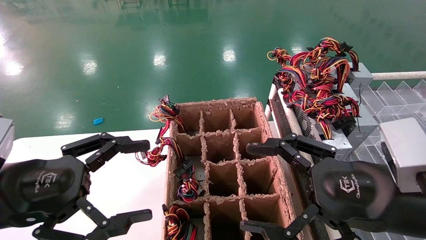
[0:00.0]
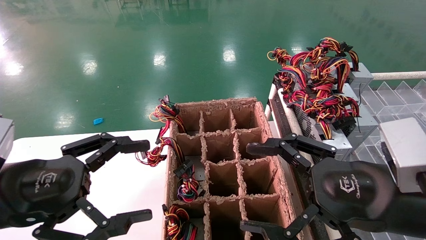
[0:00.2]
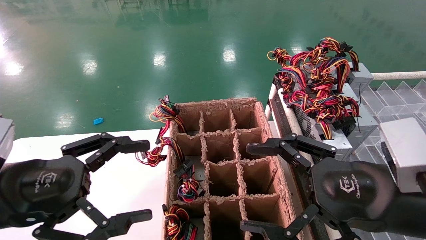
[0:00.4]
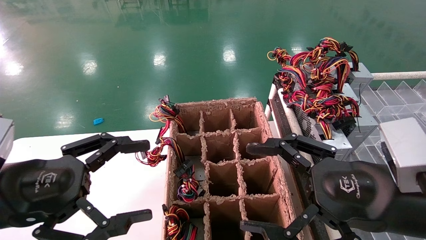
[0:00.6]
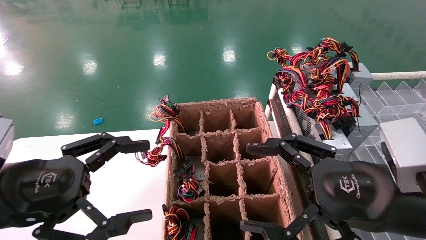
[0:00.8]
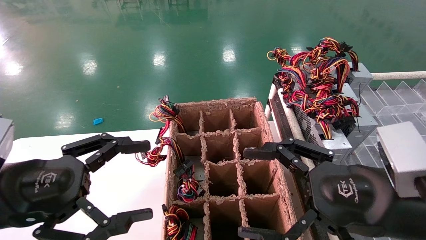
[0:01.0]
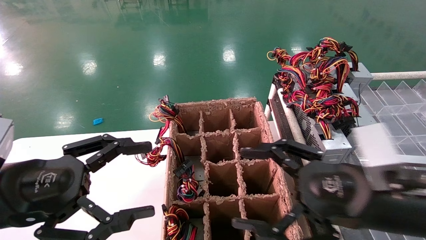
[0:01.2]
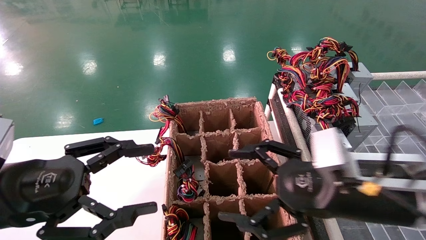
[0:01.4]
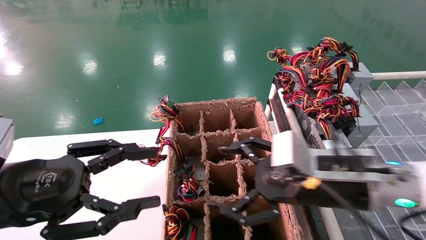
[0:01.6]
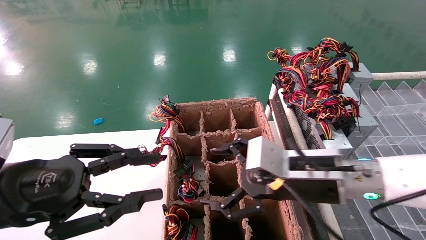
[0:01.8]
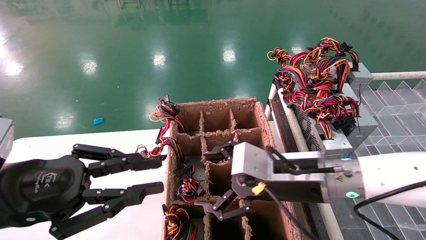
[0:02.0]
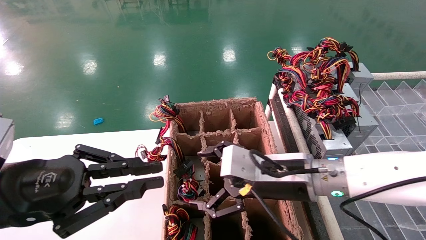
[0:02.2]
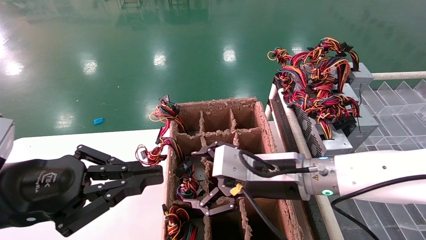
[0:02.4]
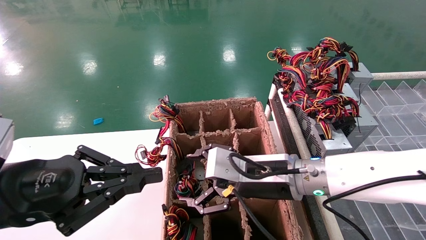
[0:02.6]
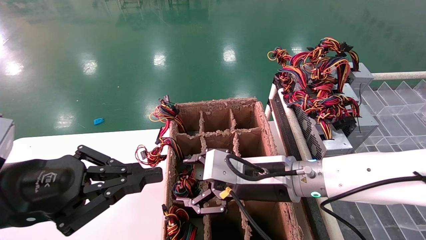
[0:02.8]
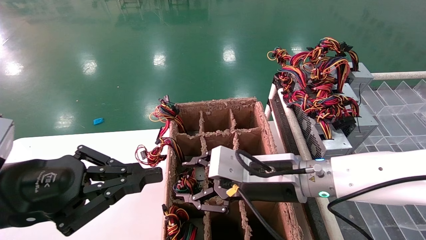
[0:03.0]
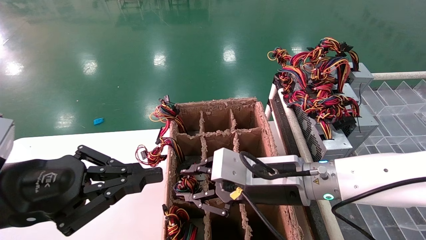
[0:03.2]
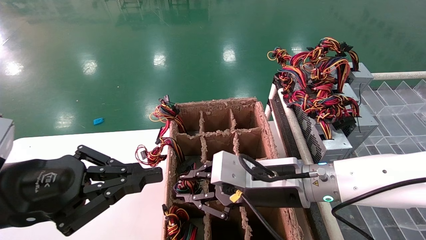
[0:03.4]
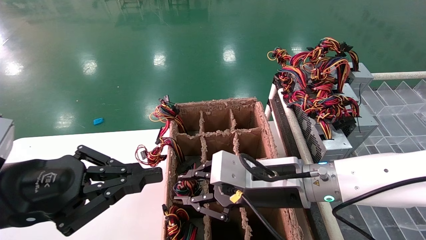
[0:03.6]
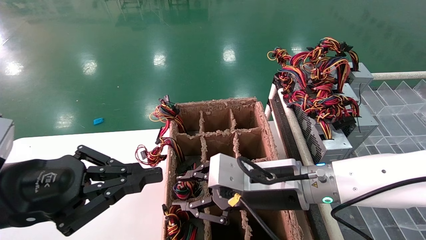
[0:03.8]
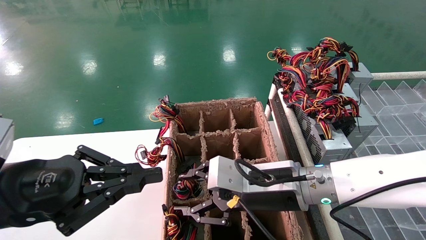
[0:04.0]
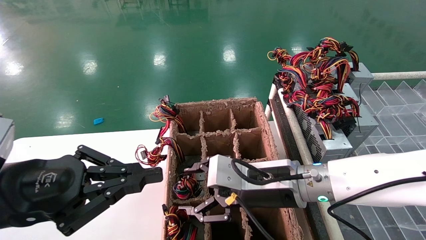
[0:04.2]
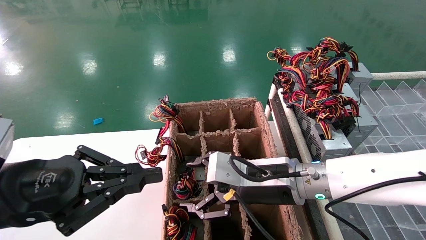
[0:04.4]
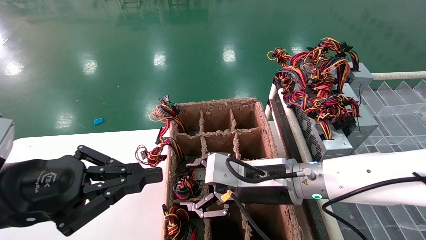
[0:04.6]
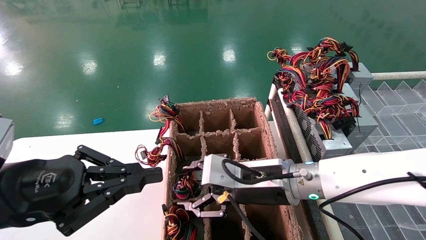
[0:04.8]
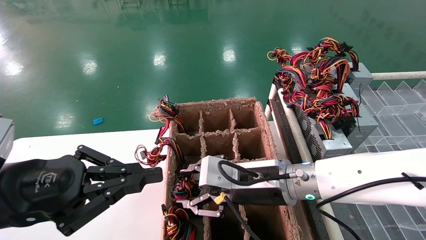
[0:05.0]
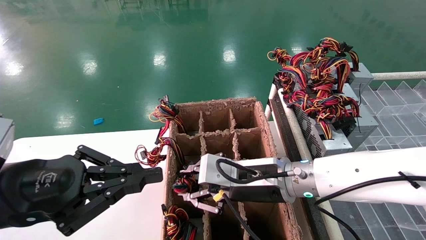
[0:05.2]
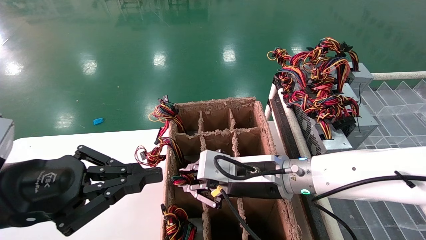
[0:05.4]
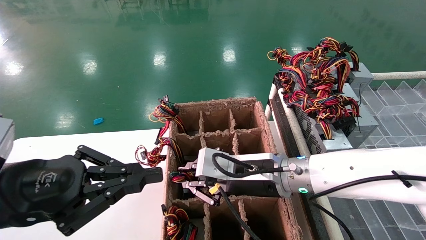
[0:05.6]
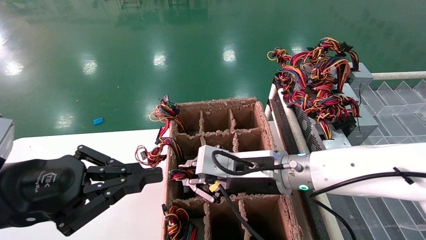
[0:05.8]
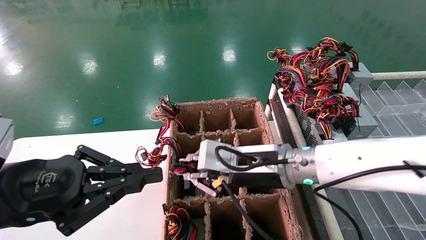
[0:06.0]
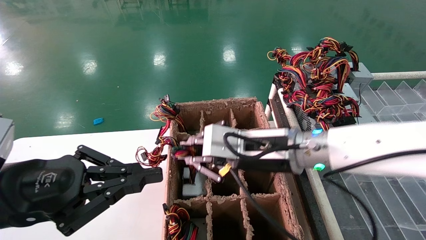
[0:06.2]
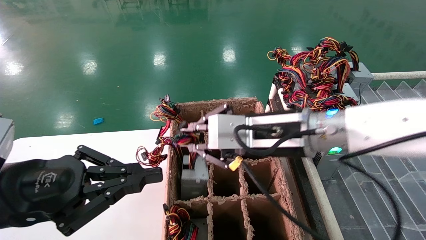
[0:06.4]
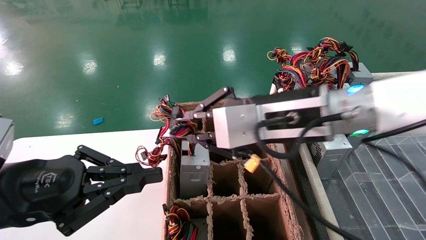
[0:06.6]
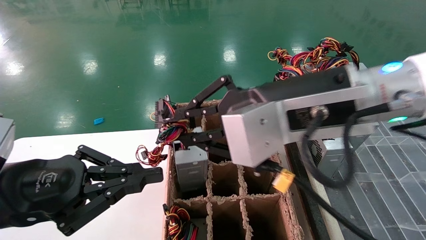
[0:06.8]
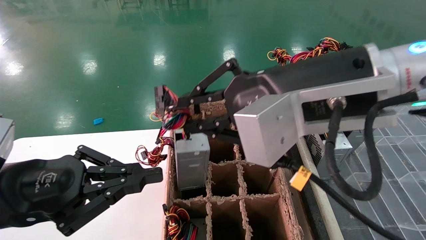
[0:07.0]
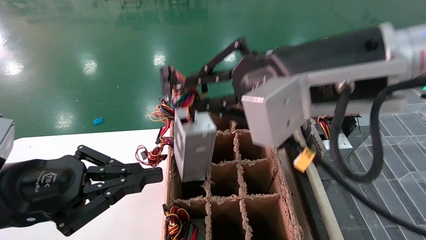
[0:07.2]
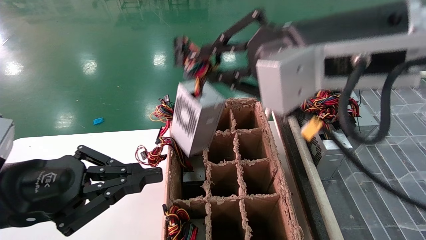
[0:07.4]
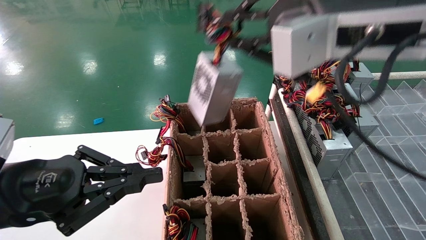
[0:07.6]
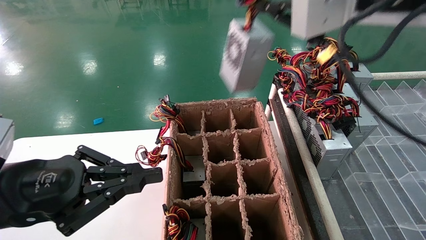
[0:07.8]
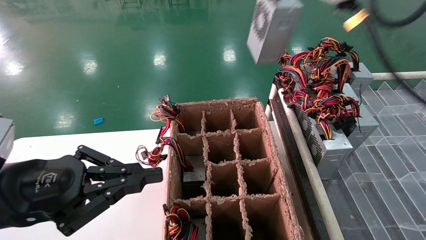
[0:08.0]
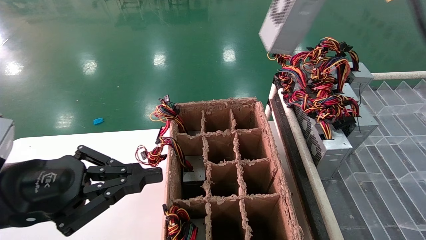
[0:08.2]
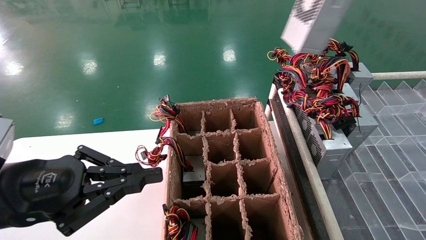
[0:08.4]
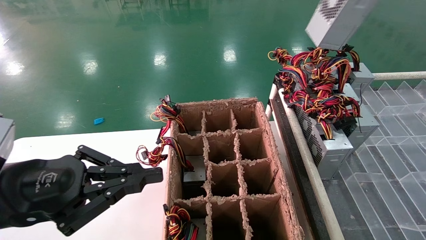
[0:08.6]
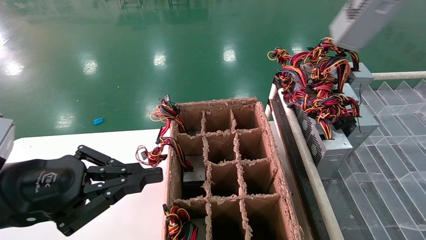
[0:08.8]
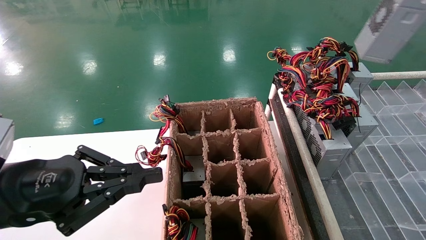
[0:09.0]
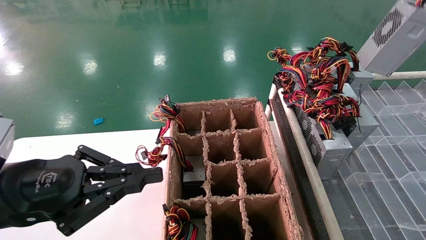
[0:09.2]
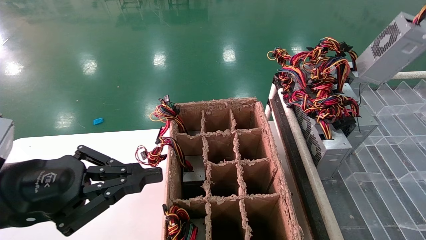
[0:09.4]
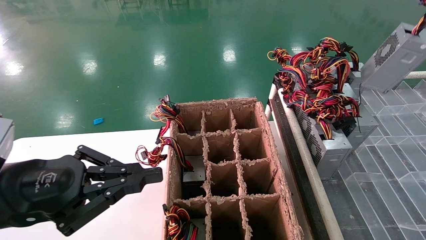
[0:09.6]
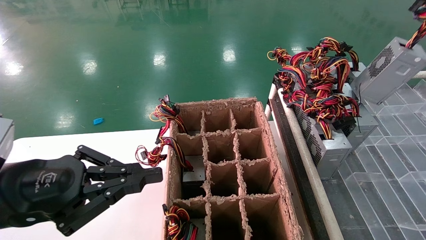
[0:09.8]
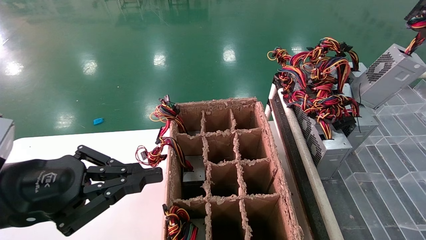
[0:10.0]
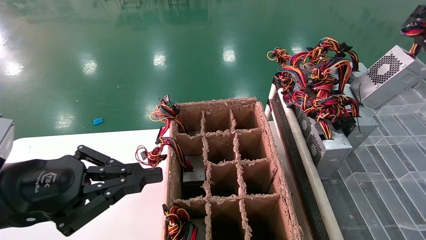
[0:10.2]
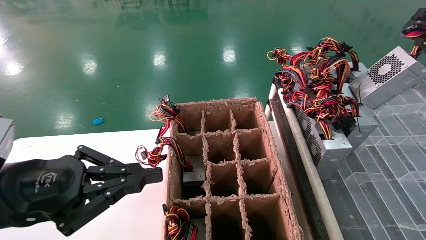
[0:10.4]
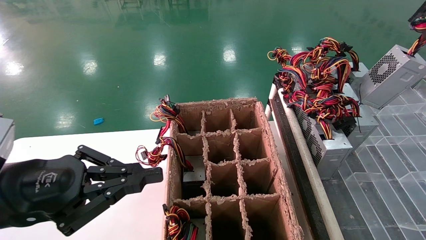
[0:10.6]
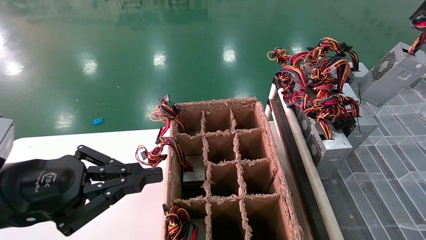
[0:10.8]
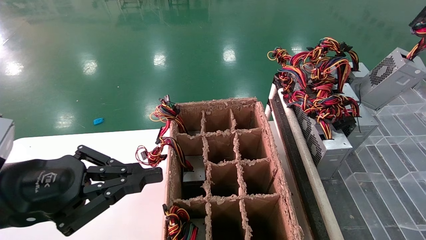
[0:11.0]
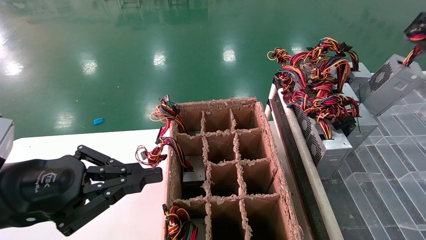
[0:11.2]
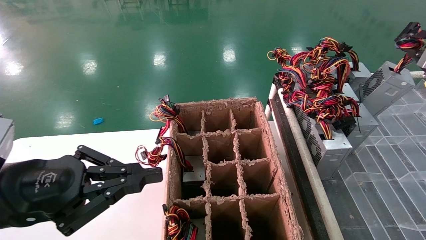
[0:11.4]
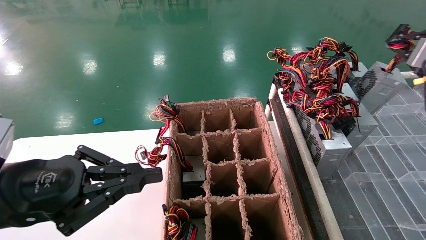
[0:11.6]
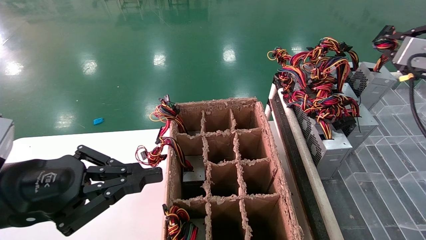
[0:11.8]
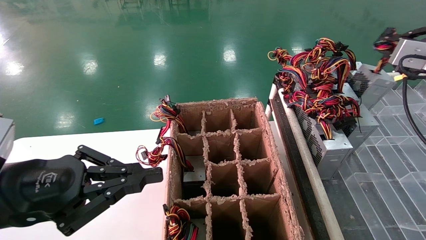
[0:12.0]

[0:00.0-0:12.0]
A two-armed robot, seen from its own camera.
Step, 0:01.6 to 0:05.6: Grab the main unit power supply from the containment box.
0:00.0 to 0:01.6: The right gripper is displaced forward and to the left by approximately 10 cm.
0:01.6 to 0:03.0: The right gripper shifts about 5 cm to the left, and closes up. The left gripper closes.
0:03.0 to 0:04.4: The right gripper closes, then reopens.
0:04.4 to 0:06.0: The right gripper closes its fingers.
0:06.0 to 0:07.6: The right gripper shifts roughly 20 cm upward.
0:07.6 to 0:09.0: The right gripper goes about 20 cm to the right.
0:09.0 to 0:10.4: The right gripper shifts some 10 cm downward.
0:10.4 to 0:12.0: The right gripper shifts approximately 10 cm forward.

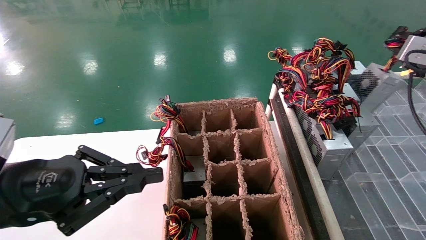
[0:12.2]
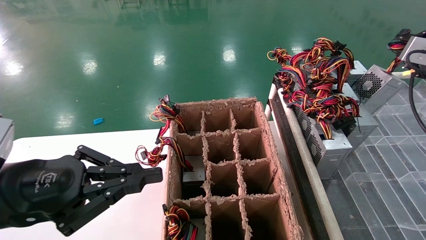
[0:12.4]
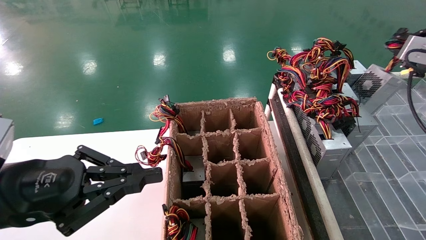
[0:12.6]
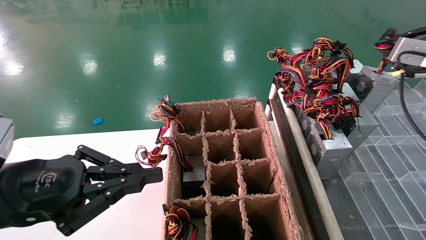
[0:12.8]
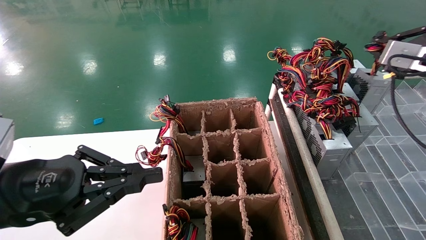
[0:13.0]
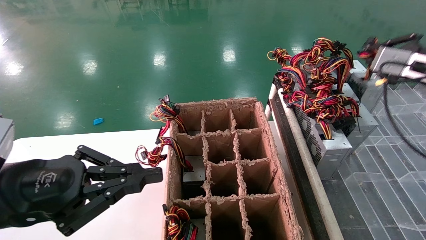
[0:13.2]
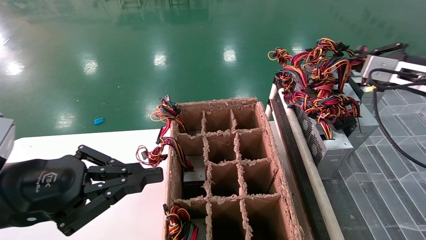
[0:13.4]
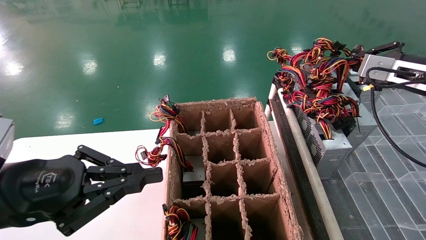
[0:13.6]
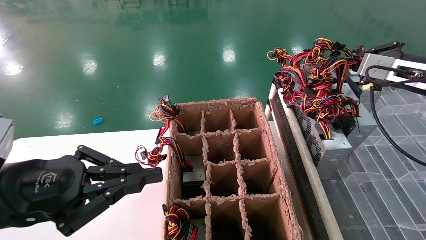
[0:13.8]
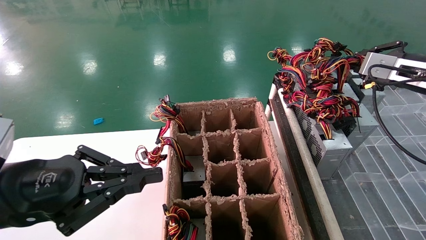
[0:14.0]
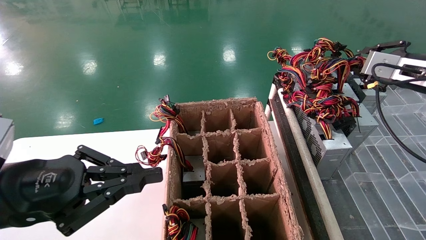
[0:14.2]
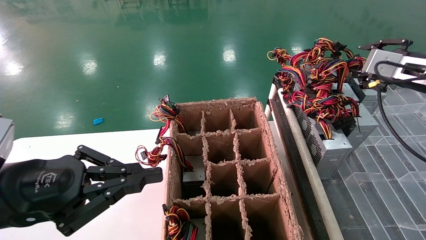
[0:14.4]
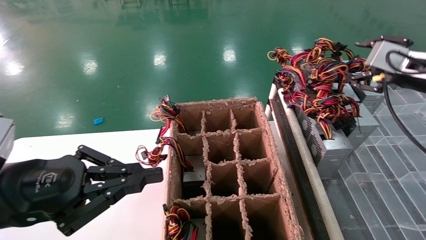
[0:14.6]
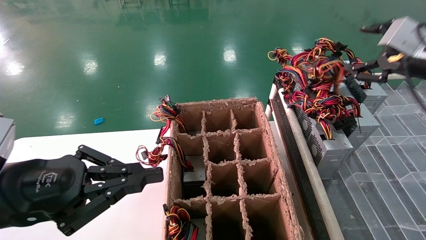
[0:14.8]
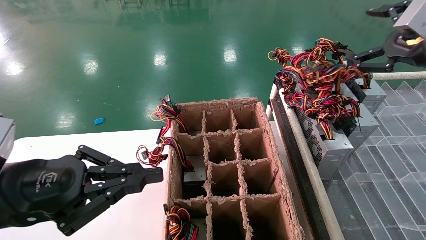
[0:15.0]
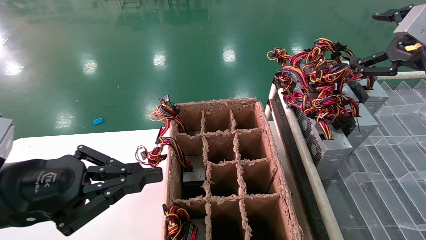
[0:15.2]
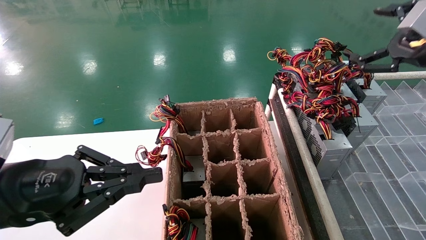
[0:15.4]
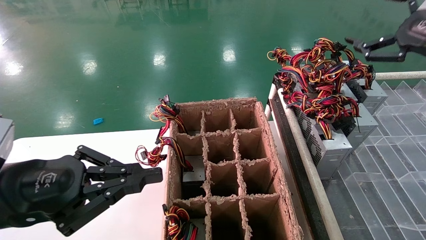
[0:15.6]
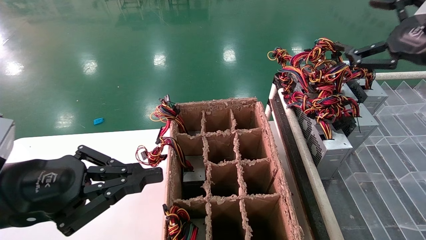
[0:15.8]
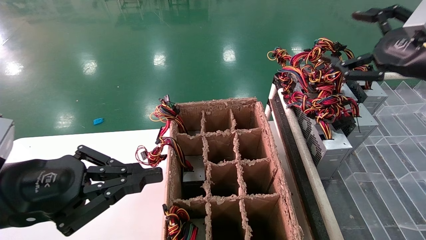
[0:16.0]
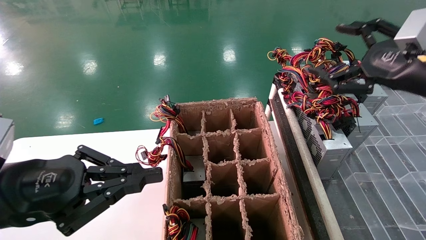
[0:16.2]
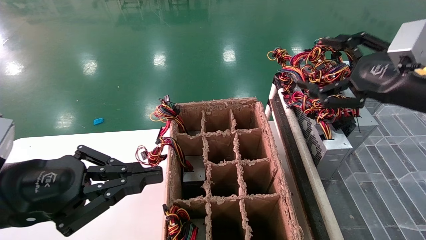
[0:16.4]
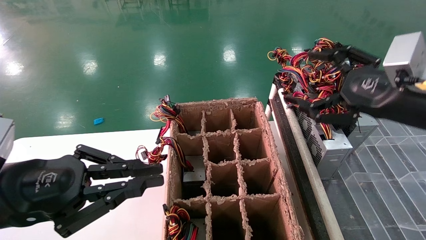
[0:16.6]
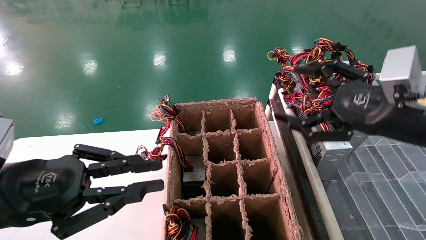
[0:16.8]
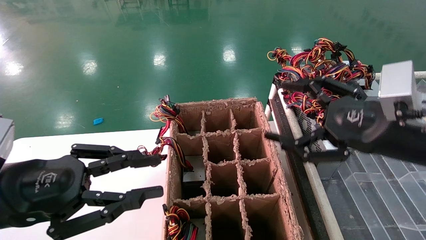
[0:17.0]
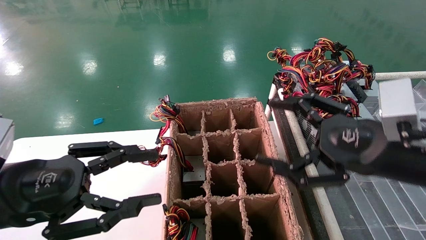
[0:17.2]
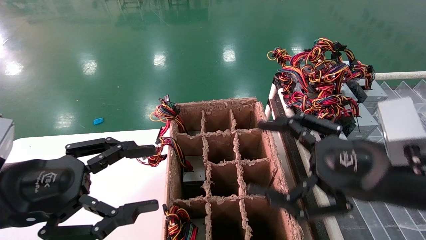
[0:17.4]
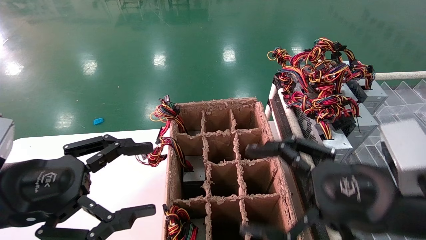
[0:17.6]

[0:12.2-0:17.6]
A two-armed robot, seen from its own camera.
Step, 0:12.2 to 0:14.6: Place the main unit power supply in the designated area.
0:12.2 to 0:13.6: The right gripper changes place by roughly 5 cm.
0:13.6 to 0:15.0: The right gripper is displaced backward by about 5 cm, and opens.
0:15.0 to 0:16.2: The right gripper heads to the left, covering roughly 5 cm.
0:16.2 to 0:17.6: The right gripper goes approximately 20 cm to the left, downward and backward, while the left gripper opens up.
